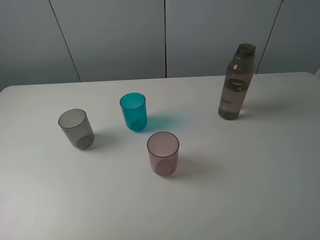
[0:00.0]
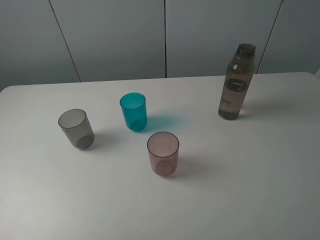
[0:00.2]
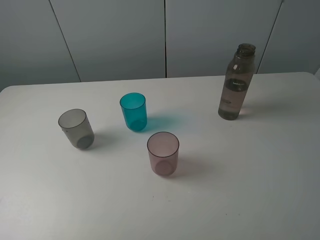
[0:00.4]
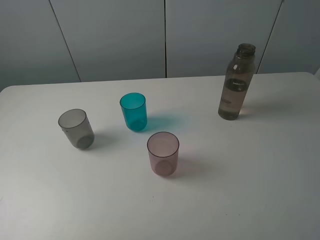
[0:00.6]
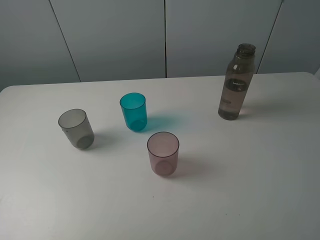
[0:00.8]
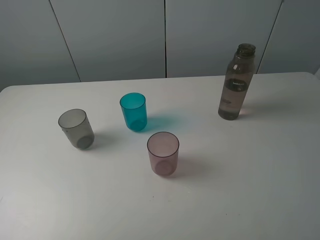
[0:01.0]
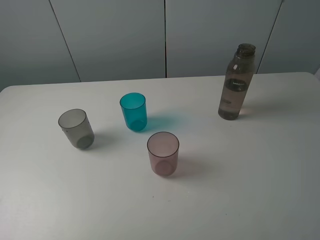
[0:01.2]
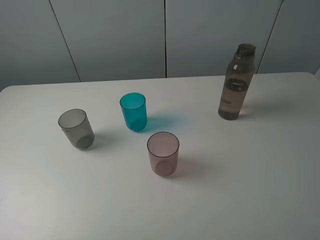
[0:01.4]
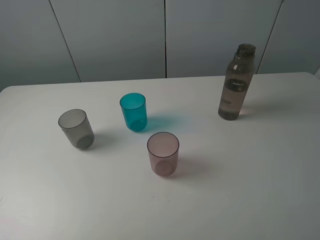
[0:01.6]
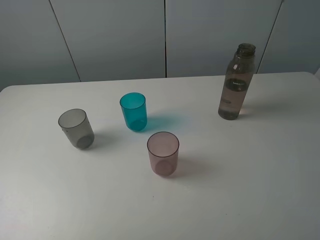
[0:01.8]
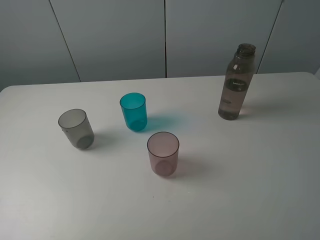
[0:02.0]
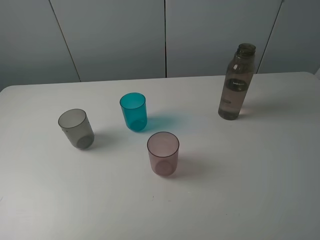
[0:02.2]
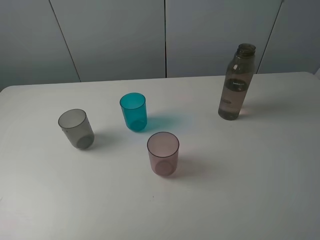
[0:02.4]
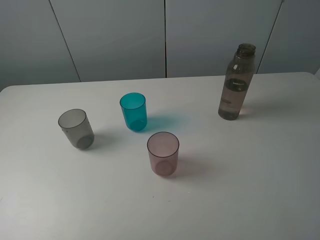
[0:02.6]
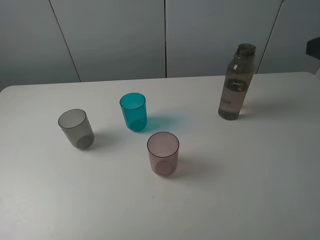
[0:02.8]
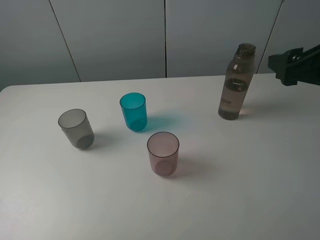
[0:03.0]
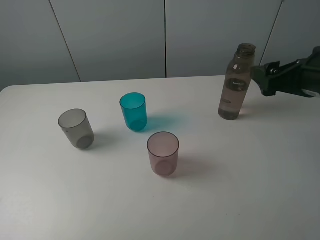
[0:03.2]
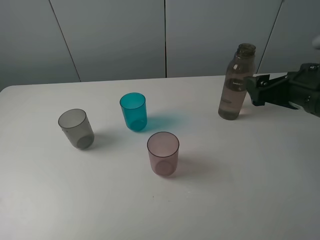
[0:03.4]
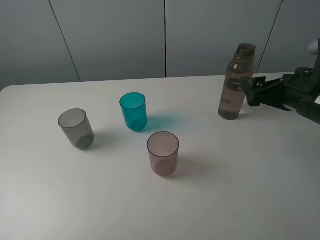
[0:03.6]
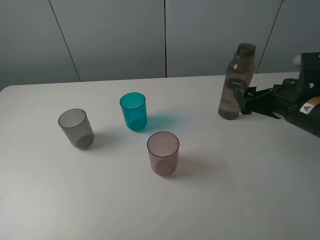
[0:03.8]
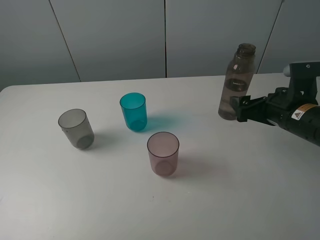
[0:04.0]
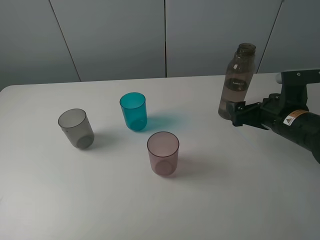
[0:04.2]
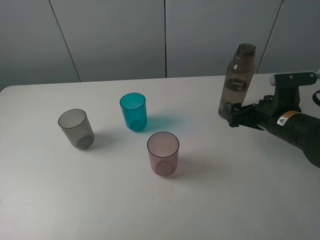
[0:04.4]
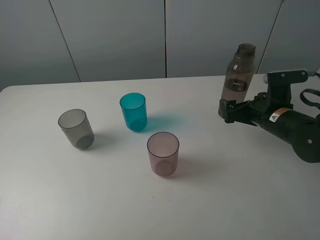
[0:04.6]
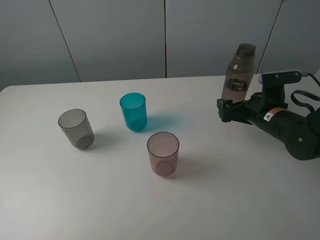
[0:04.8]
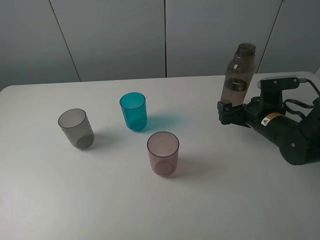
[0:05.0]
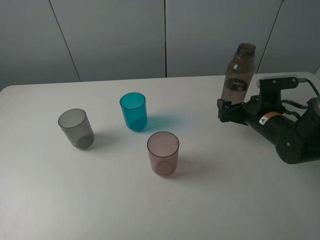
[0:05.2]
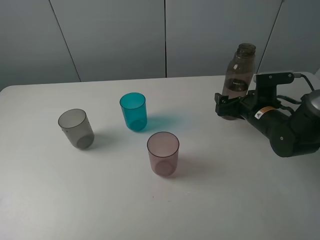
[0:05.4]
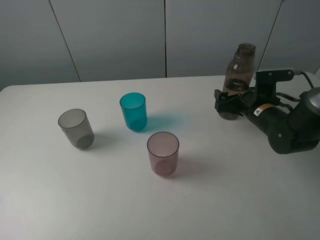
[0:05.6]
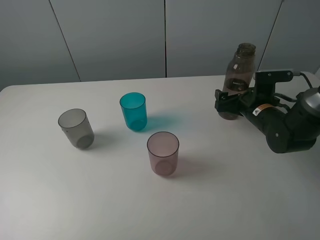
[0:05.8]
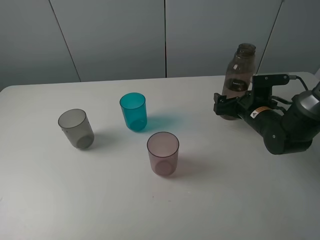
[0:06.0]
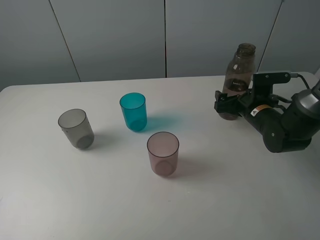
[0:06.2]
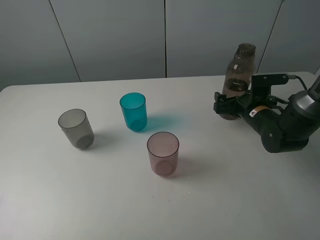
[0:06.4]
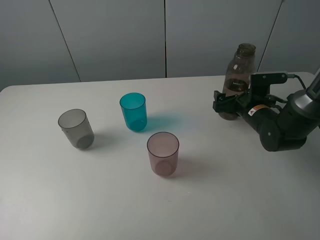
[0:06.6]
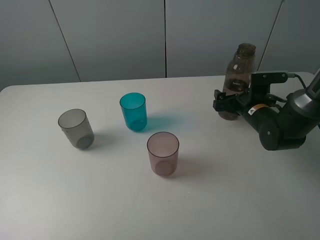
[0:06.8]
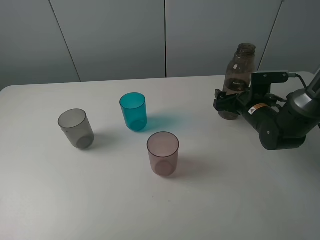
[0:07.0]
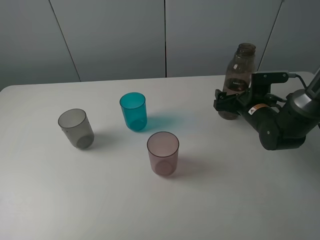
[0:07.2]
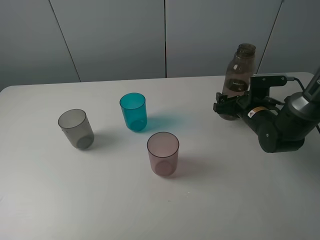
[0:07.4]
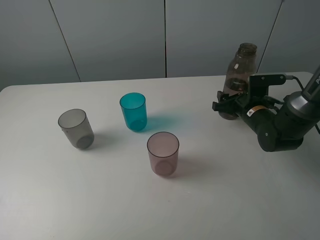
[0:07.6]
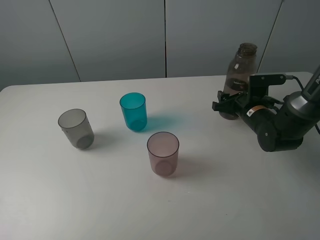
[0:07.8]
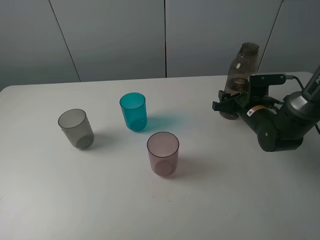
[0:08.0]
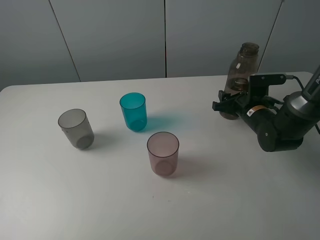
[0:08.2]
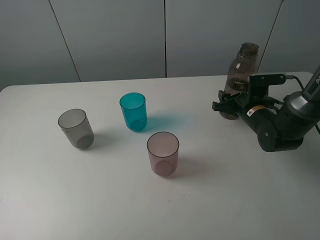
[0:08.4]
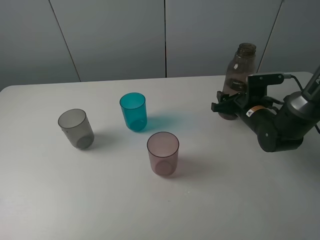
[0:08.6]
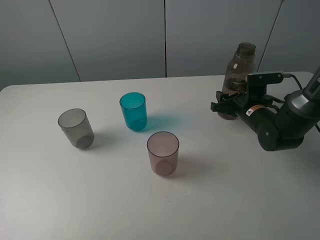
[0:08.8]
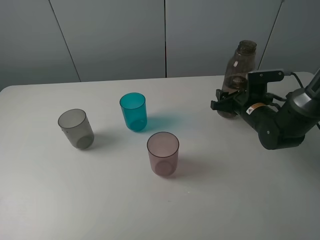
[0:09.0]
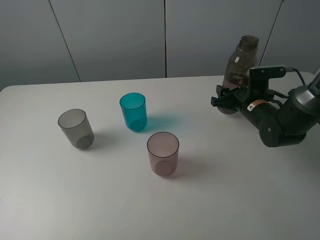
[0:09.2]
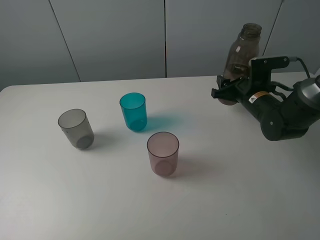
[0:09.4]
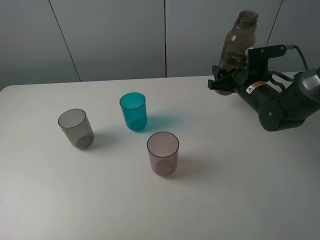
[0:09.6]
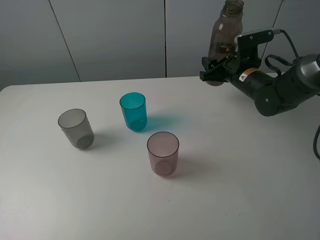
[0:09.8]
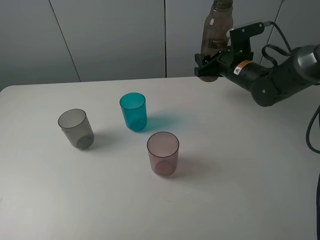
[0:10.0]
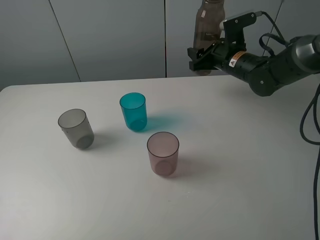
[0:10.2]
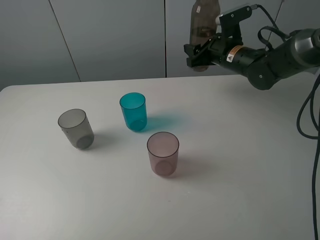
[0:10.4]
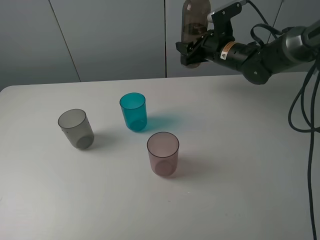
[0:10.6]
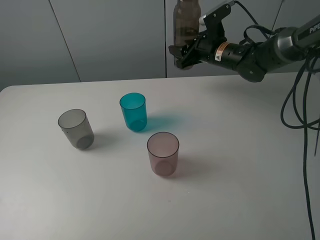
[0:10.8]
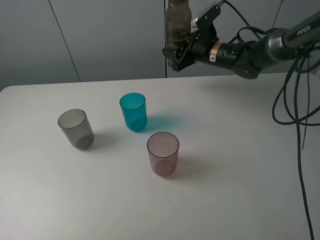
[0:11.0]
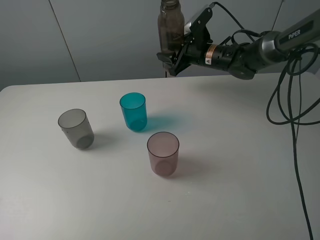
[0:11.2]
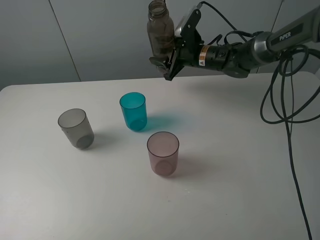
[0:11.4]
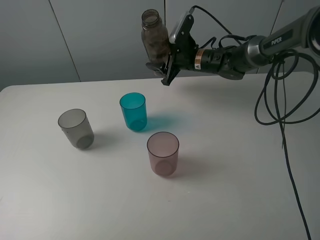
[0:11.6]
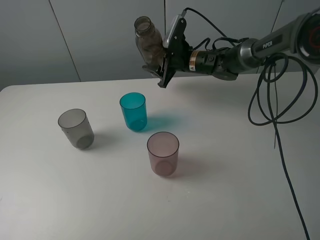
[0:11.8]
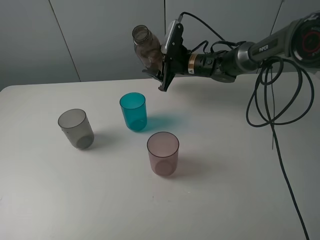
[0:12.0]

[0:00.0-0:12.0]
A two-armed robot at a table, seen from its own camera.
Task of the whole recording: pick up the bottle filled with water and pour water into the middle cup of the three cups.
Step, 0:00.0 to 0:07.8: Grasp the transparent bottle with the right gripper.
0:01.6 to 0:03.0: The right gripper shifts some 20 cm forward.
0:03.0 to 0:04.4: The right gripper heads downward, covering approximately 15 cm, and opens up.
0:04.4 to 0:06.0: The right gripper travels forward by about 5 cm.
0:06.0 to 0:07.6: The right gripper closes.
0:07.6 to 0:09.0: The two grippers keep their place.
0:09.0 to 0:10.4: The right gripper heads upward, forward and to the left, covering about 15 cm.
0:10.4 to 0:12.0: The right gripper travels to the left, downward and forward by roughly 10 cm.

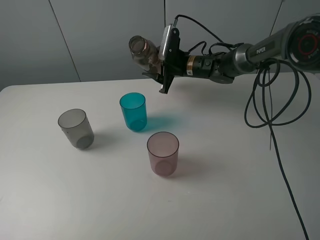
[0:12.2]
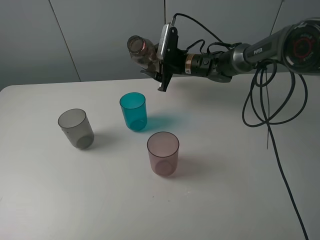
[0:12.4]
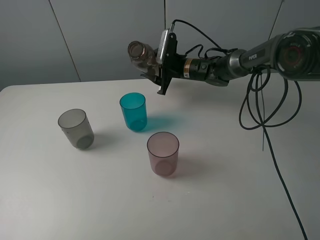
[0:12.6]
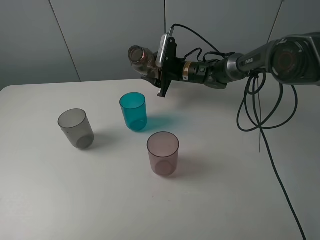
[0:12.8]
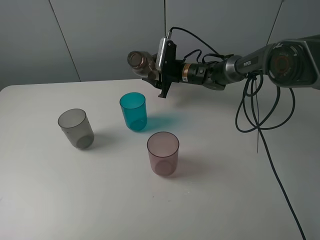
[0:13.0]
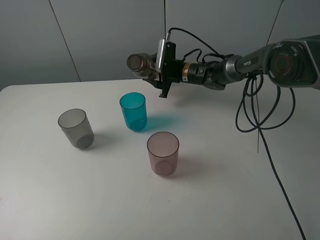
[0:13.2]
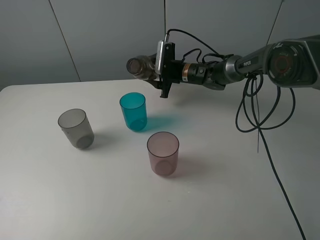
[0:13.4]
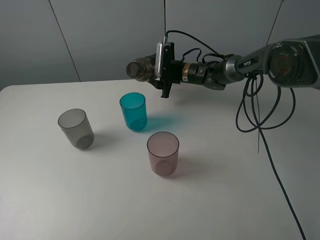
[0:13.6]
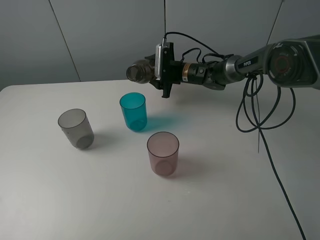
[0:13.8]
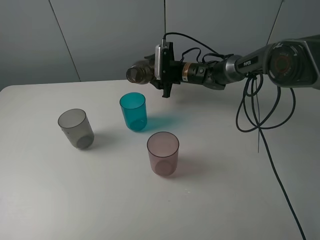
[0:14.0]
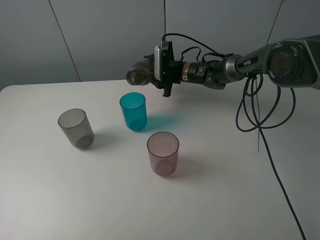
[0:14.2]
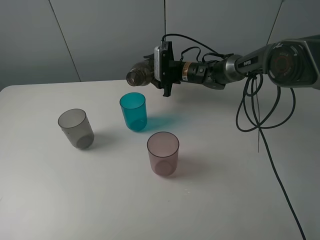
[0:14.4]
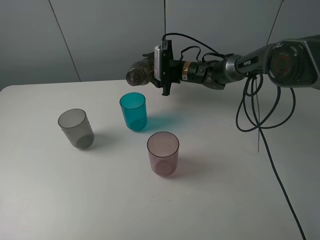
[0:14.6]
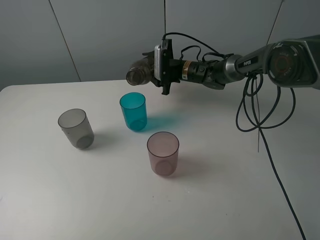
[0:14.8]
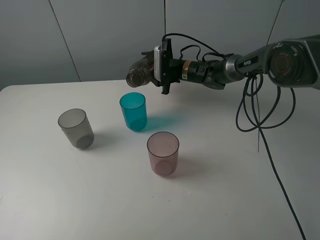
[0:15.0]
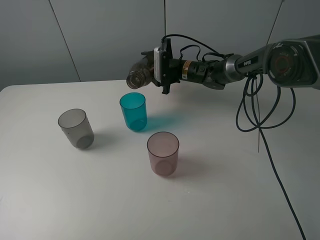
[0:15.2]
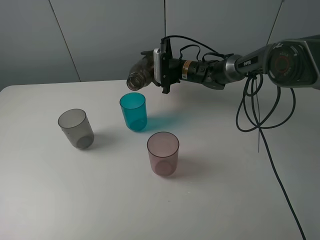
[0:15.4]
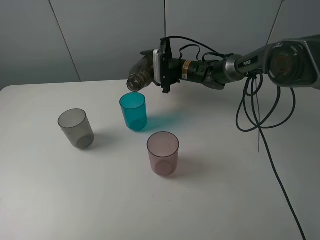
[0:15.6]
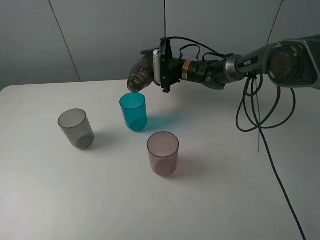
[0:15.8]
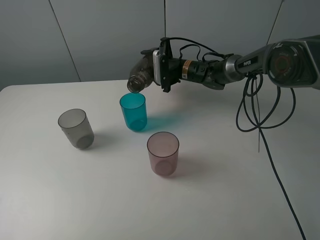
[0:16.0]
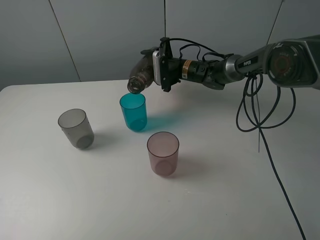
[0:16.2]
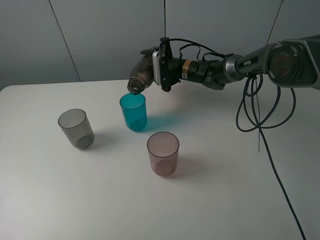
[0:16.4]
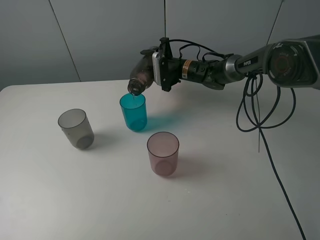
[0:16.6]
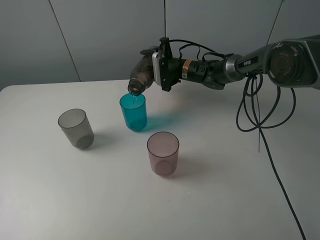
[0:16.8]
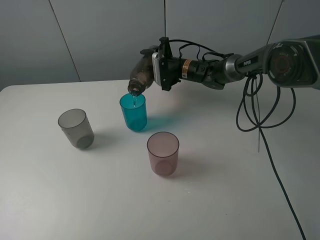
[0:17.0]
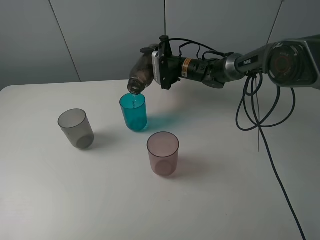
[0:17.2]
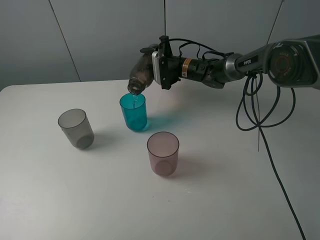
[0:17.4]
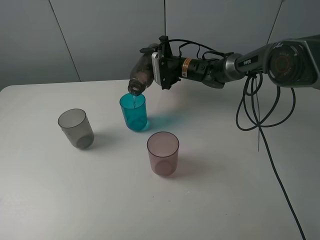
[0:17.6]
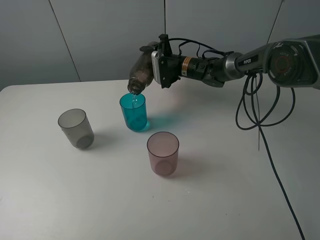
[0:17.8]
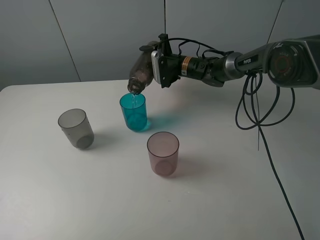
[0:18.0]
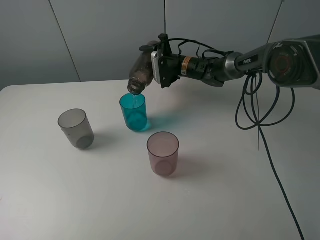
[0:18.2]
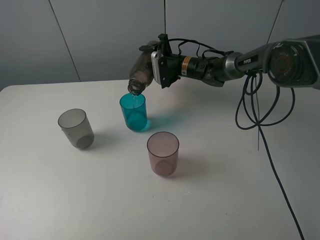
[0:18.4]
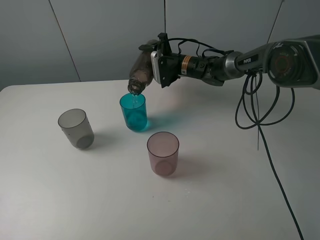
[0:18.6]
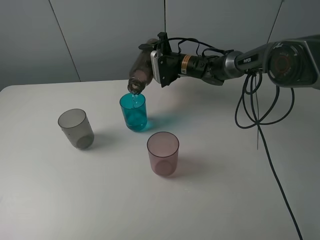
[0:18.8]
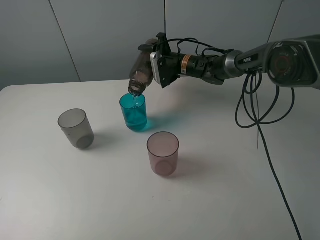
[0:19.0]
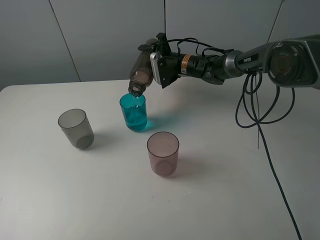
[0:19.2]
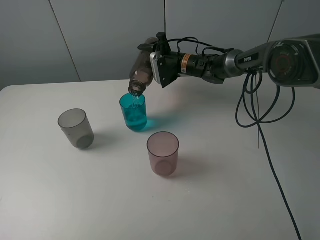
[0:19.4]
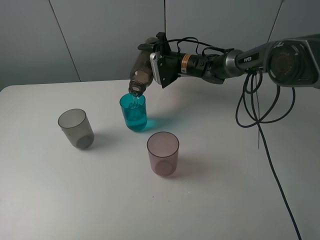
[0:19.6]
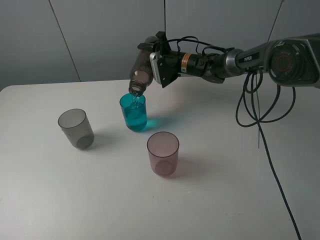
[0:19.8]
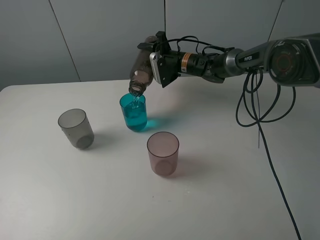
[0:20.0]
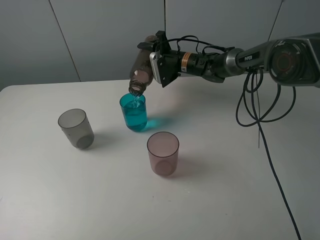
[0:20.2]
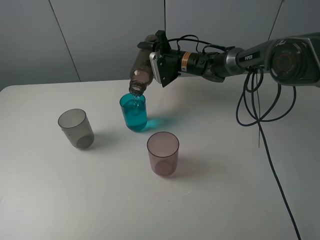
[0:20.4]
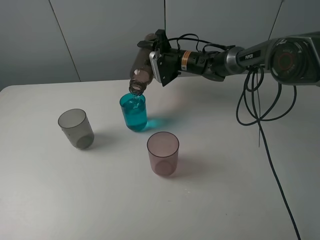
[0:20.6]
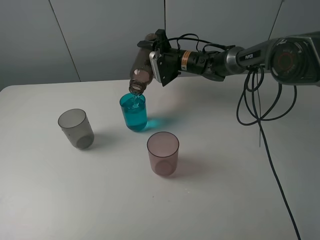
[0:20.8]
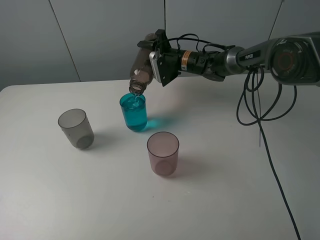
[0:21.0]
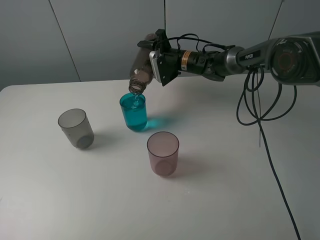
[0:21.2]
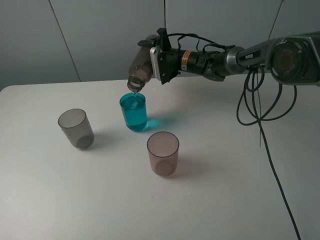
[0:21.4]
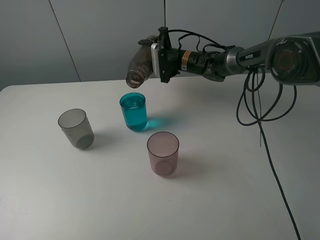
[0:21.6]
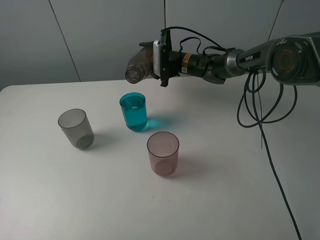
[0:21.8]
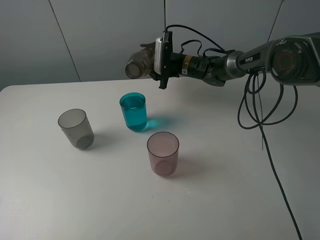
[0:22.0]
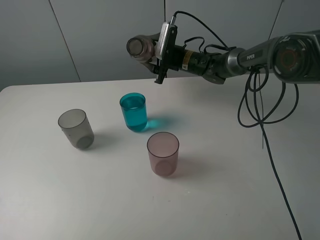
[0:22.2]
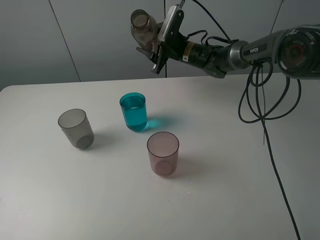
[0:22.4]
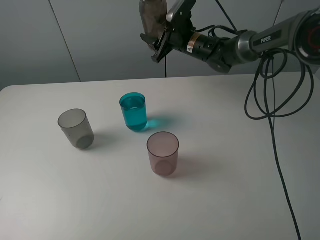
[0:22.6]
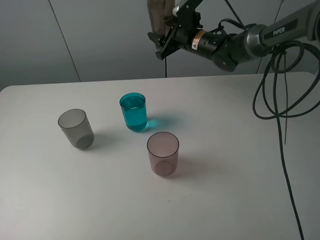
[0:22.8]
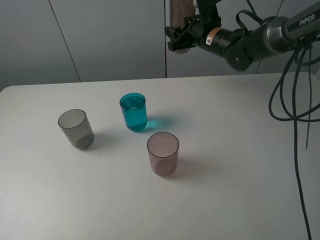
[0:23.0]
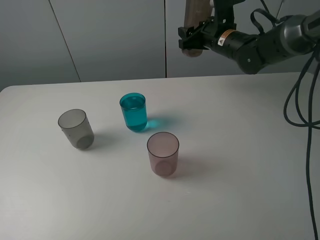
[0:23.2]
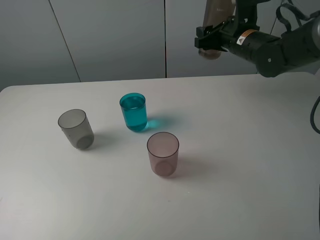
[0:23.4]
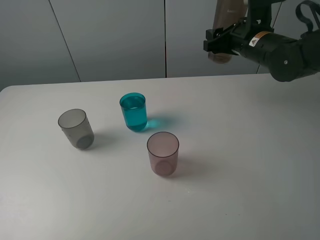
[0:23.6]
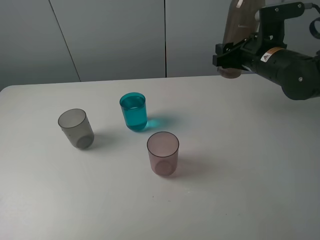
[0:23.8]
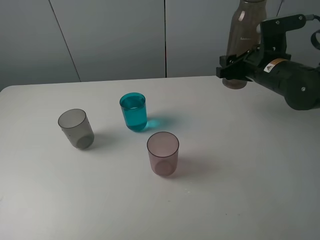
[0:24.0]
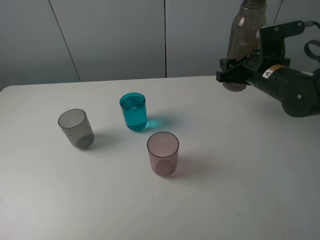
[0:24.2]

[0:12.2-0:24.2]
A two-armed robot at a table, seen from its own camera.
Task of the whole recording: pick up the bottle filled with water and pour water into the middle cup of the three cups.
Step, 0:12.2 to 0:16.0: Pour water from transparent bottle to blue cup with the right gripper.
0:12.2 to 0:13.8: The grippers move only a little.
0:13.8 to 0:15.2: The grippers make only small movements.
0:15.2 to 0:16.6: The grippers stay close to where they were, moving slightly.
0:16.6 to 0:18.2: Neither gripper changes place.
0:18.2 to 0:19.8: The grippers move only a little.
0:19.8 to 0:21.2: Both grippers stay about where they are.
0:21.2 to 0:22.6: The right gripper travels upward by about 5 cm.
0:22.6 to 0:24.2: The right gripper travels backward and to the right by approximately 20 cm.
